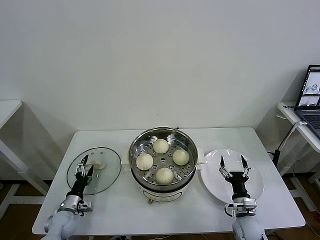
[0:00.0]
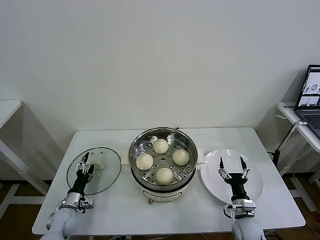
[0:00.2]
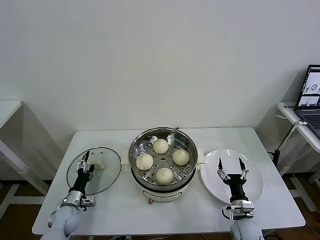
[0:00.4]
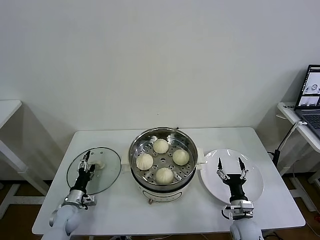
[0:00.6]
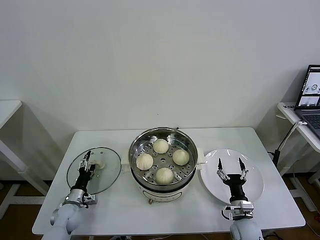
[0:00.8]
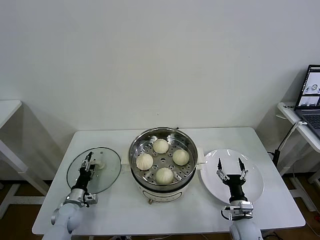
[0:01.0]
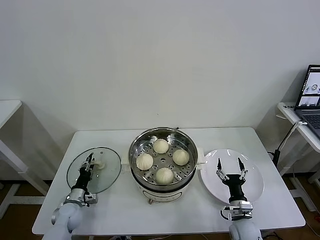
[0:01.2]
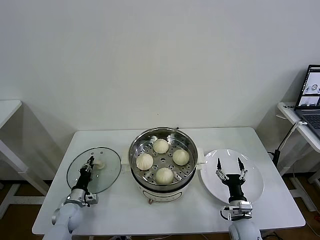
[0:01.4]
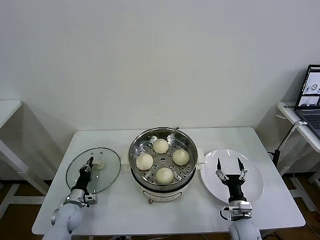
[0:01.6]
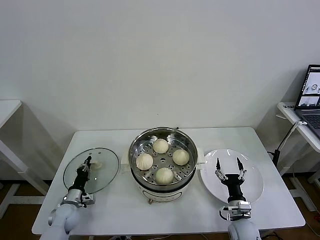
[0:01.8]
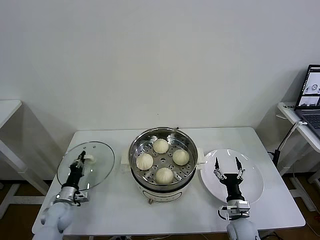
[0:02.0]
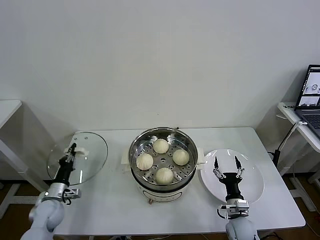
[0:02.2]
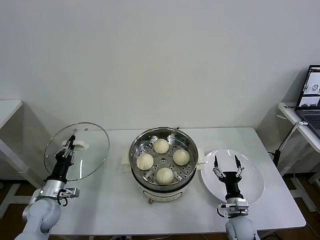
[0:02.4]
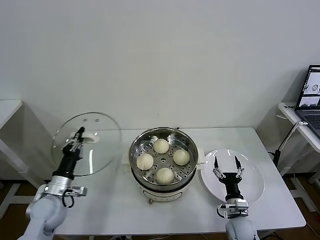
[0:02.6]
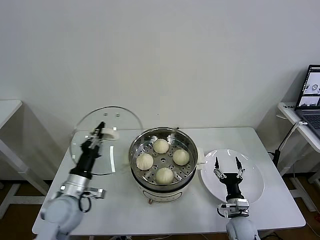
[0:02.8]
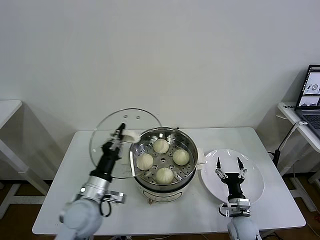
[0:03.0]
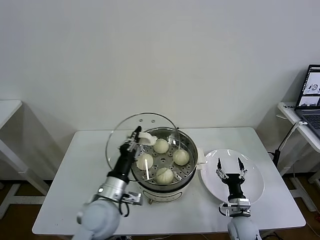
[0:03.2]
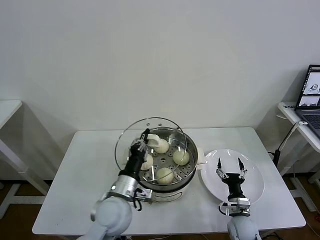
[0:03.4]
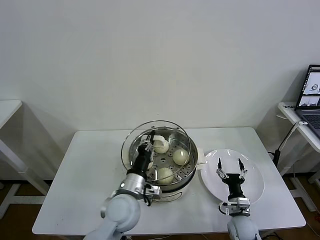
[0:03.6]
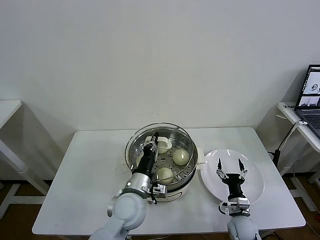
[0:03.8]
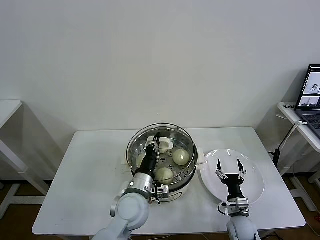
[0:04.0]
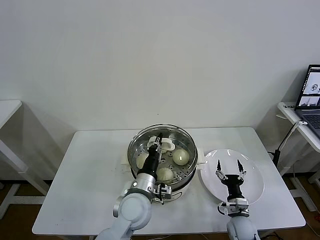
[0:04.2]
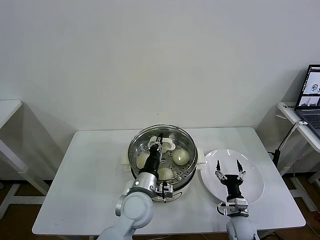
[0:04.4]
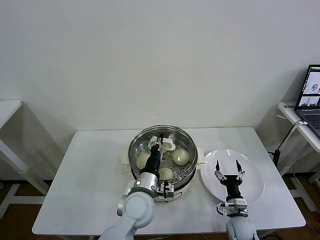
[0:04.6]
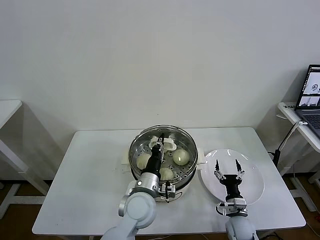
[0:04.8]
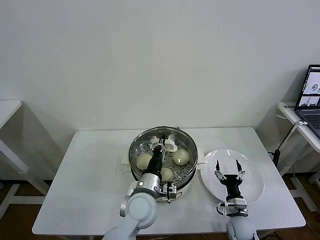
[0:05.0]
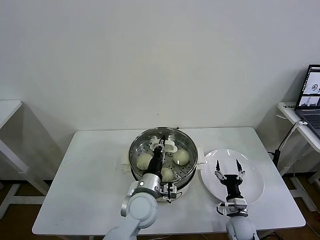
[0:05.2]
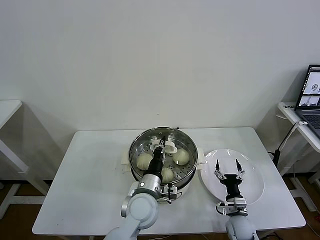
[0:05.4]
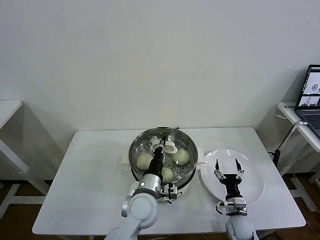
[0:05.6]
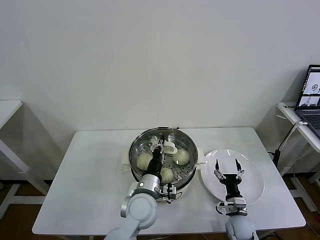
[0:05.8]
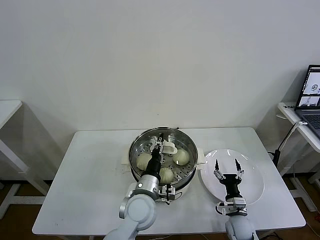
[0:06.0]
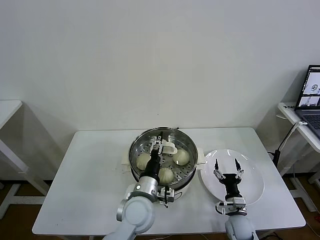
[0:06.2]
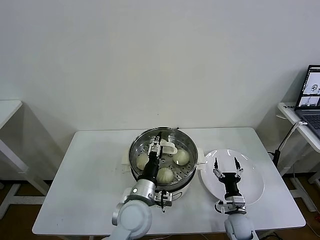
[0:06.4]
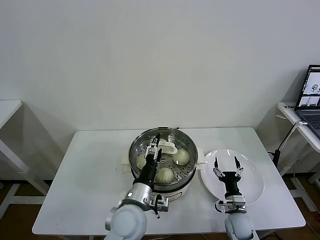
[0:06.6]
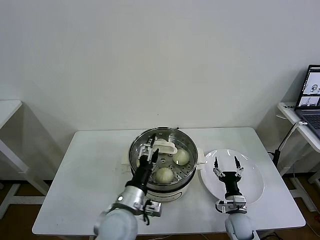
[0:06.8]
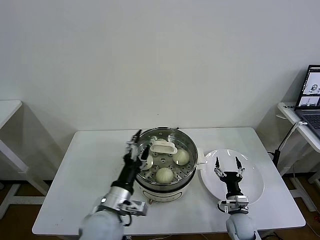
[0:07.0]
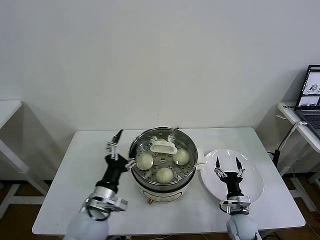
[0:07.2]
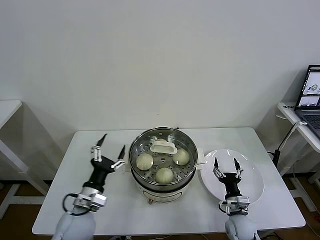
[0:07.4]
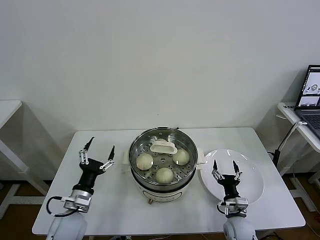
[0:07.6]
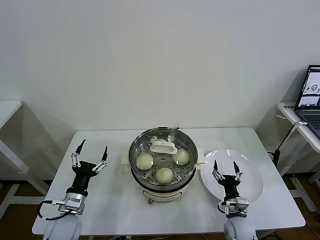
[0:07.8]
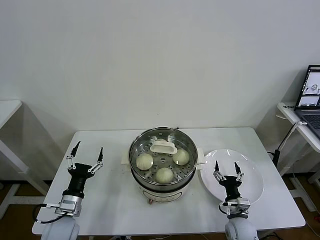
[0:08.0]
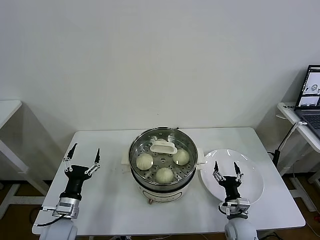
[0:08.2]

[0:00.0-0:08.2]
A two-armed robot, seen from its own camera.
Task of the whole recording: take steamed baozi put them in steamer then cover it.
Step, 0:01.8 to 0:06.0: Place the pot lid on the steamer with left gripper.
0:00.0 to 0:01.6: The left gripper closes up.
0:01.6 to 0:03.2: The left gripper shifts roughly 30 cm upward and to the right.
0:03.2 to 0:05.0: The left gripper travels to the right by approximately 10 cm.
0:05.0 to 0:06.6: The left gripper opens up.
0:06.6 to 0:08.2: The left gripper is displaced to the left by about 25 cm.
